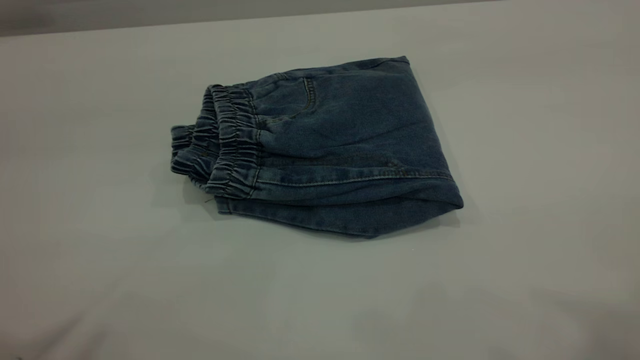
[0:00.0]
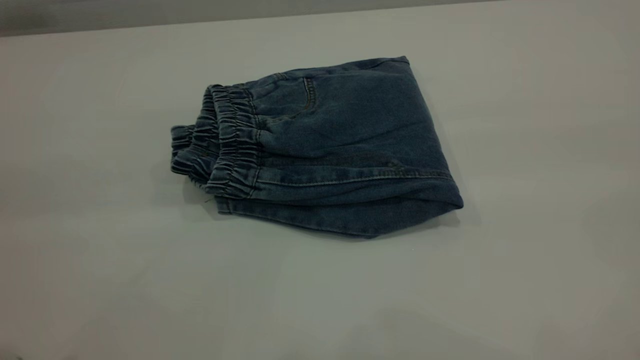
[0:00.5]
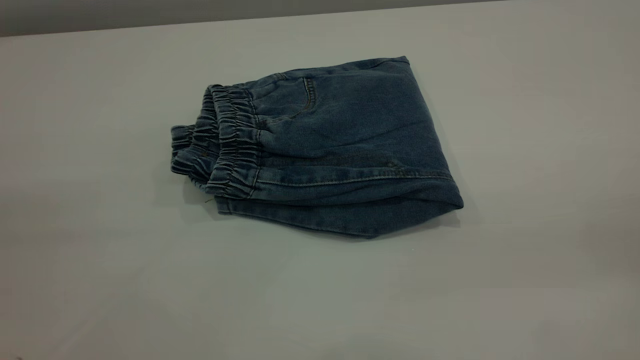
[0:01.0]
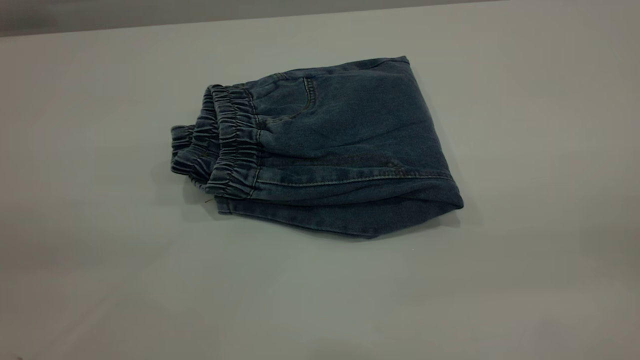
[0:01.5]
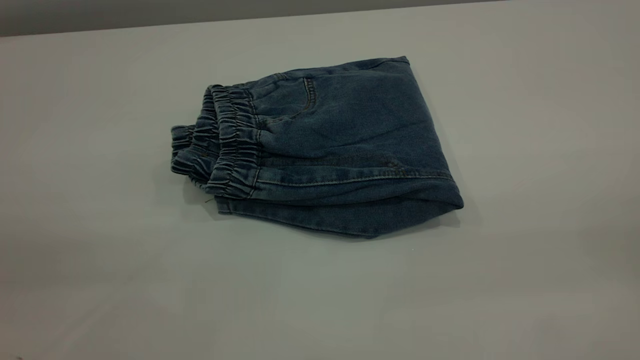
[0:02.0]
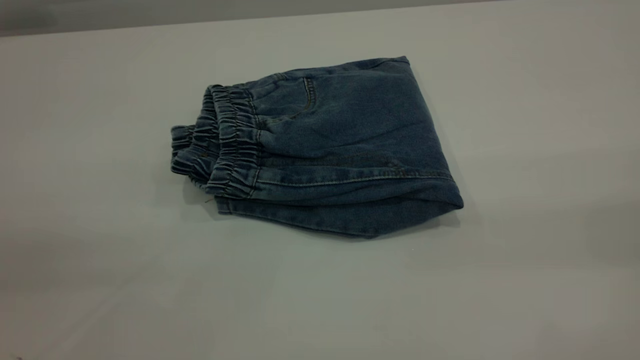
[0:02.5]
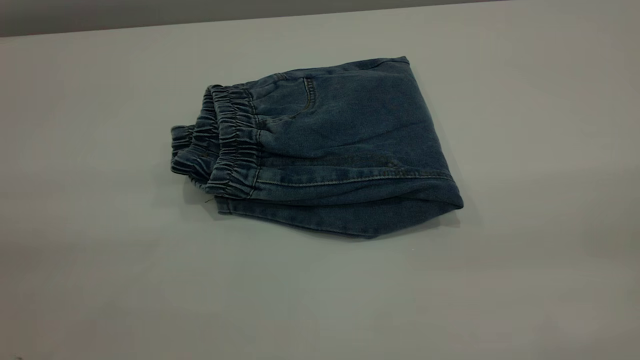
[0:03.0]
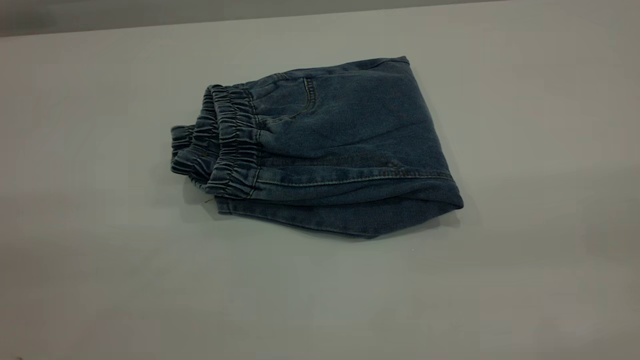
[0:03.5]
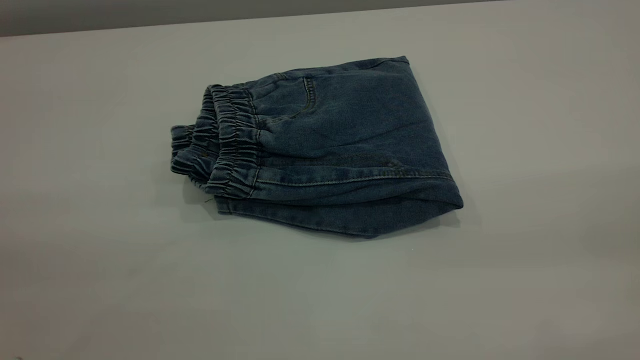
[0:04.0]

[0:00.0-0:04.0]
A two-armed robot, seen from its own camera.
0:00.0 to 0:02.0: The left gripper shifts about 15 cm downward. Meanwhile the right gripper heads downward, covering approximately 25 cm.
